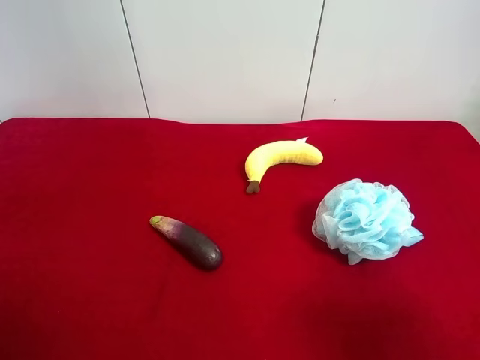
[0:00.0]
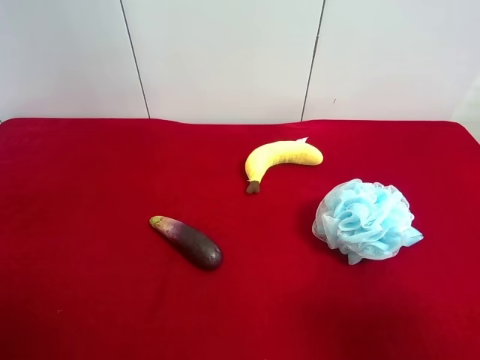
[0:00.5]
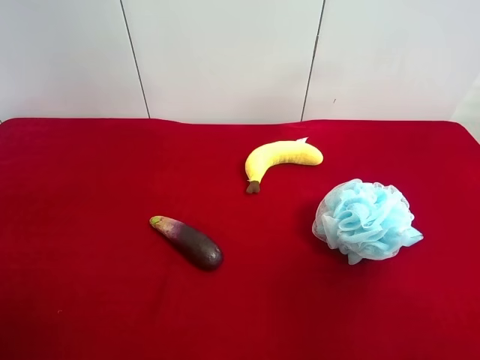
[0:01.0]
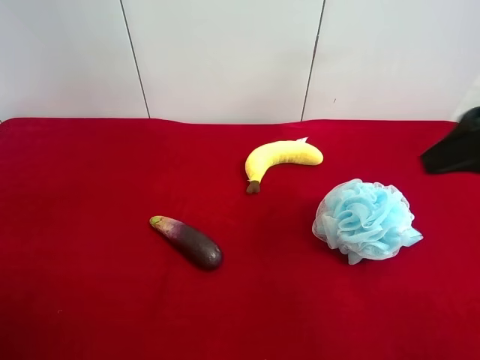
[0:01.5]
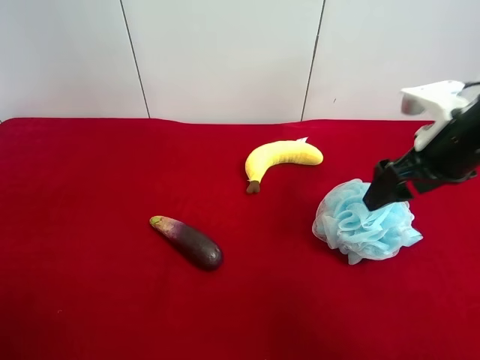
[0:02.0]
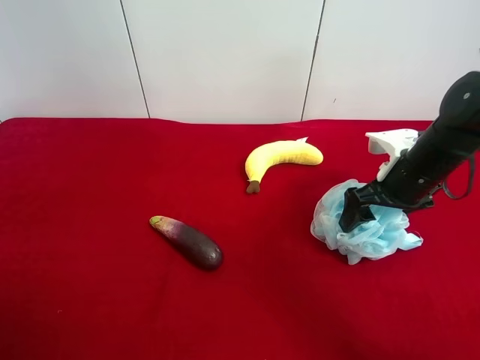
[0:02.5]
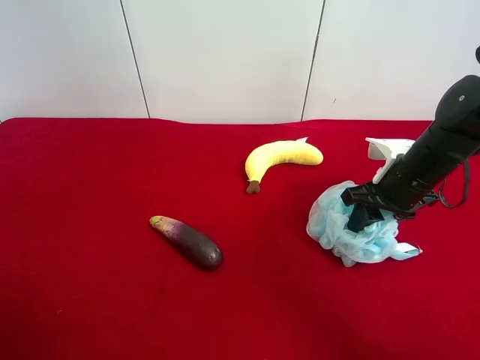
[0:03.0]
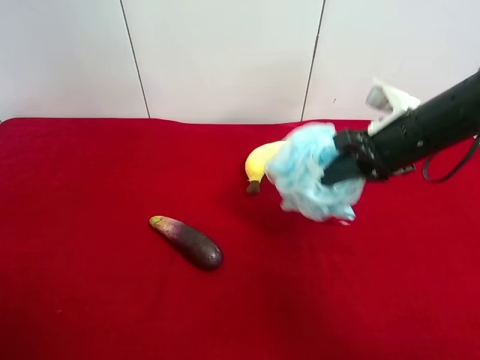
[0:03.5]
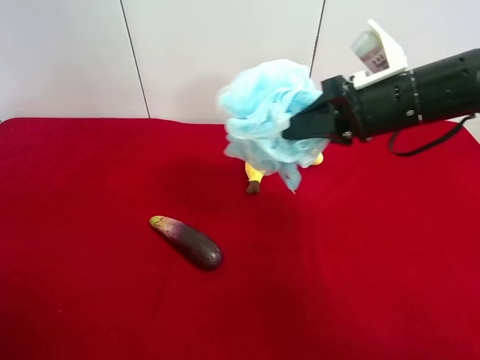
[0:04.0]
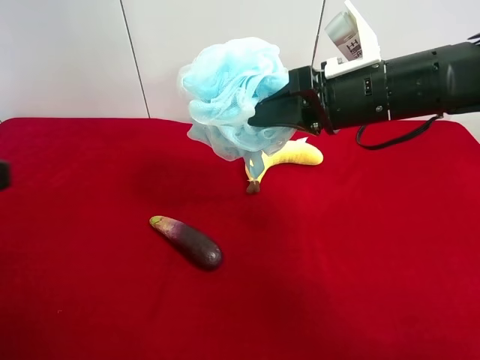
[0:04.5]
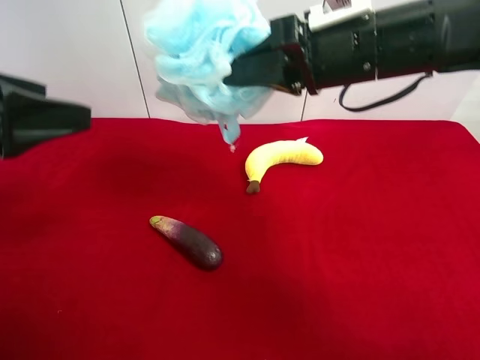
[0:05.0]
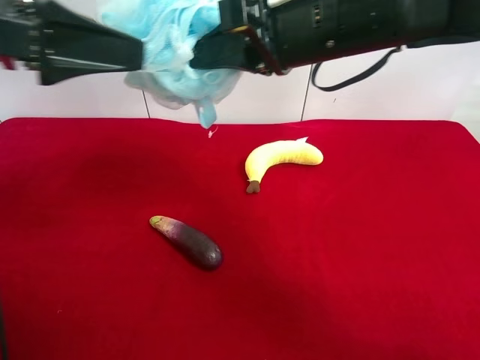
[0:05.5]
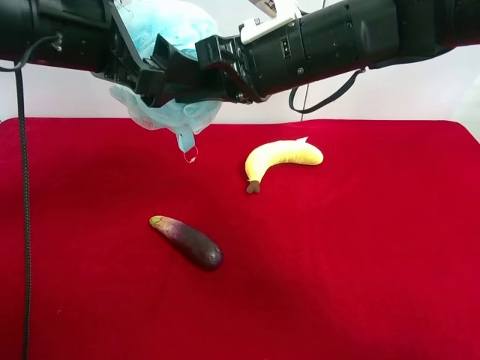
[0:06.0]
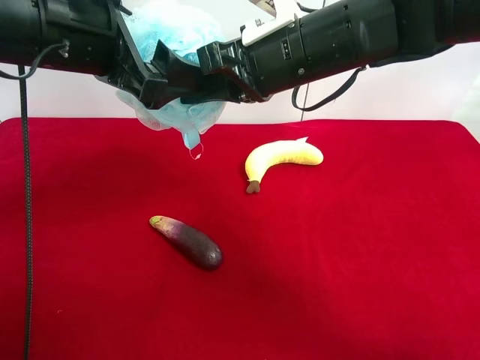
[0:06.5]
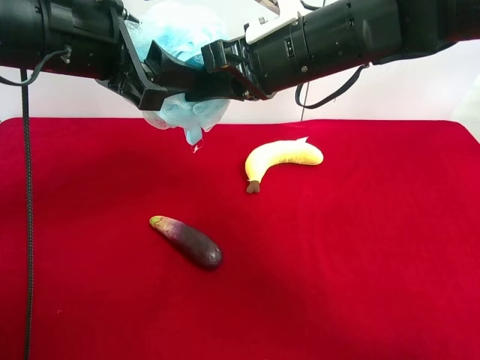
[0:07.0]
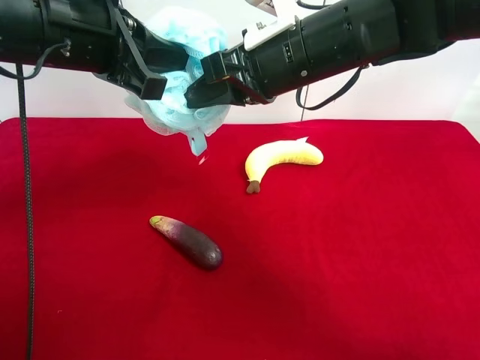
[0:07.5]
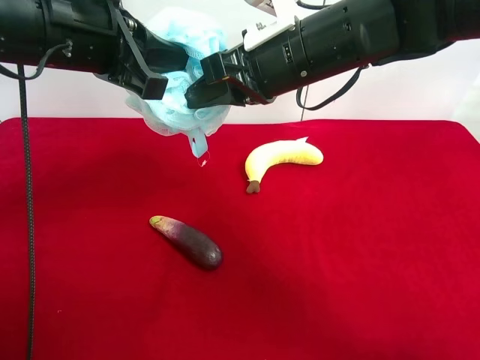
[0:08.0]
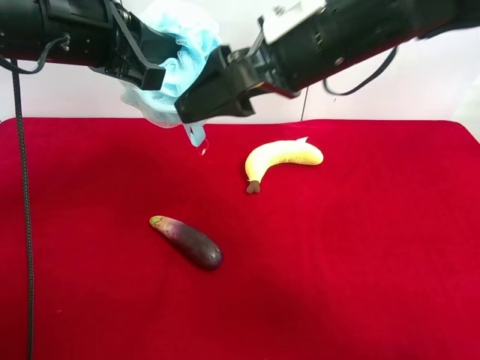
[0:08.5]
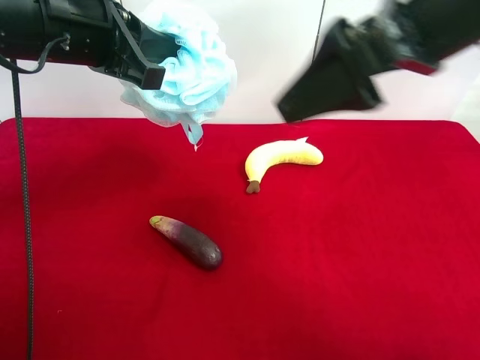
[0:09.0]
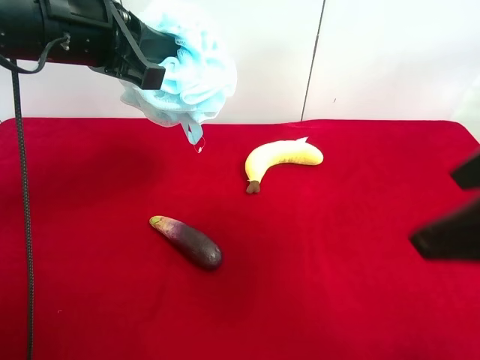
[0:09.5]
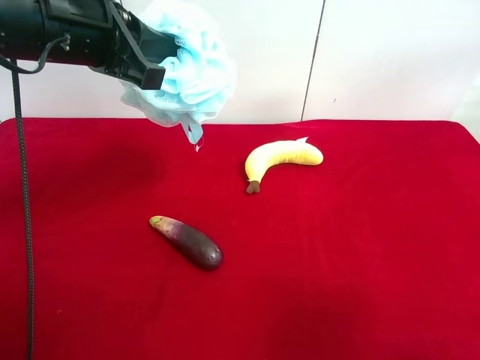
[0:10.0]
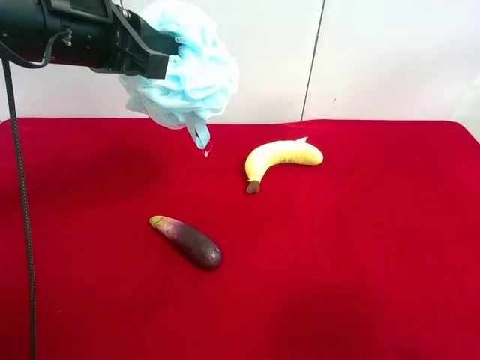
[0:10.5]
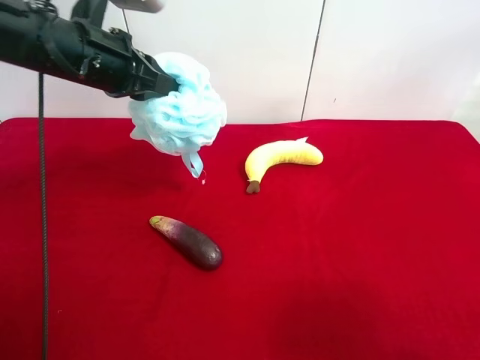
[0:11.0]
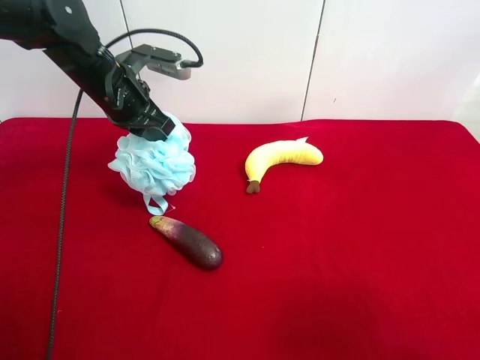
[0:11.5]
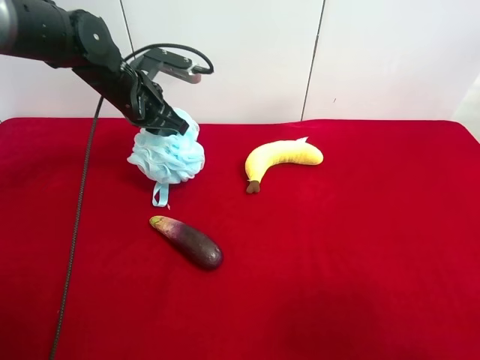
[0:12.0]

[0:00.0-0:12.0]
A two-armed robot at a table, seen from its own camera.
Task of the whole recording: use the right gripper to pick up the item and transfer it from the right gripper to the left gripper.
Step, 0:00.0 to 0:03.0: Use the right gripper to grab the shower sphere on the right side of the table.
Step, 0:03.5 to 0:08.5: Pass the shower sphereto the left gripper.
0:00.0 to 0:02.0: The right gripper moves forward, roughly 25 cm.
0:02.0 to 0:04.0: The right gripper is displaced to the left by approximately 10 cm, reaches about 10 cm downward, then returns, and closes.
0:04.0 to 0:06.0: The left gripper travels forward and to the right by some 30 cm. Meanwhile the right gripper heads to the left, covering roughly 10 cm.
0:06.0 to 0:08.0: The left gripper closes up.
0:08.0 to 0:10.0: The right gripper travels backward and to the right by about 35 cm, and opens up.
0:10.0 to 0:12.0: The left gripper shifts approximately 20 cm forward and downward.

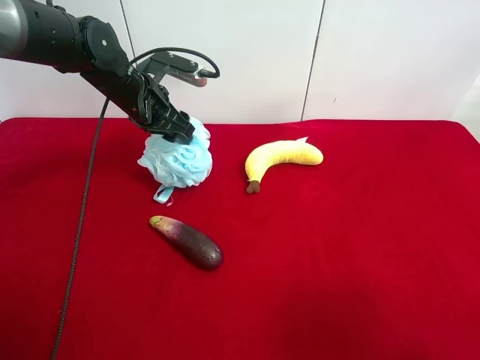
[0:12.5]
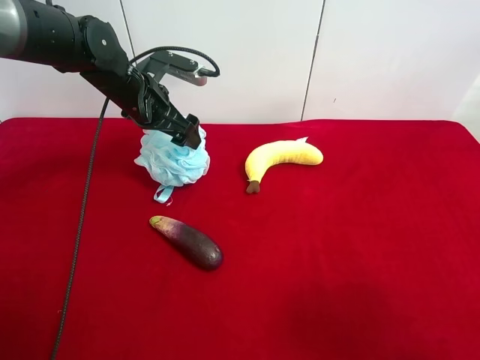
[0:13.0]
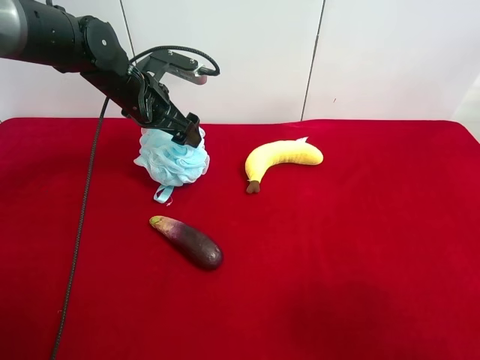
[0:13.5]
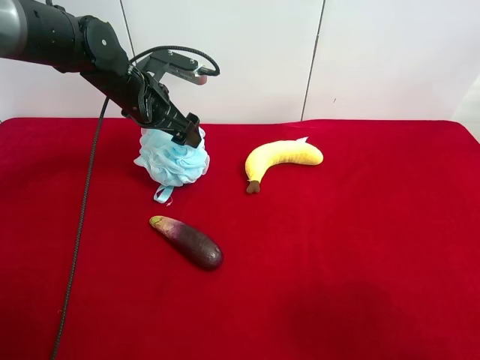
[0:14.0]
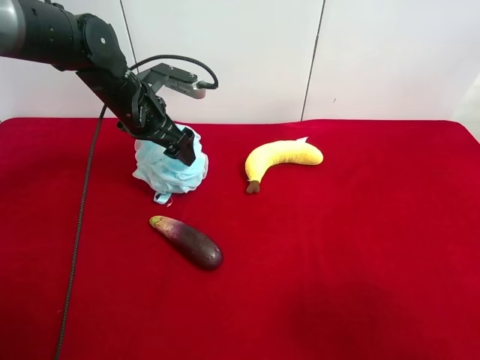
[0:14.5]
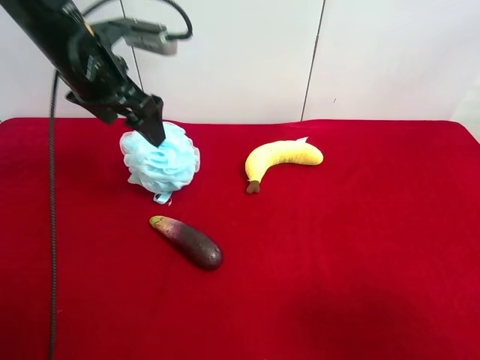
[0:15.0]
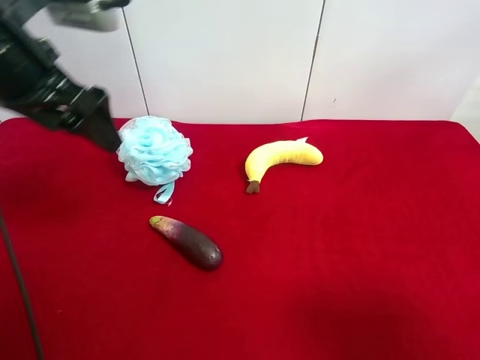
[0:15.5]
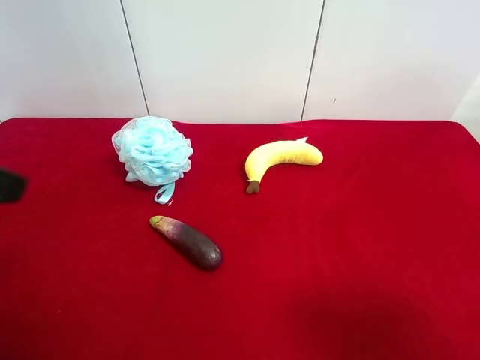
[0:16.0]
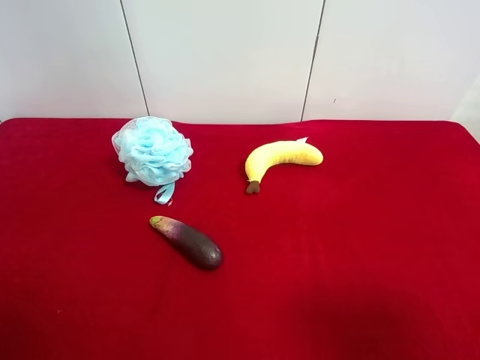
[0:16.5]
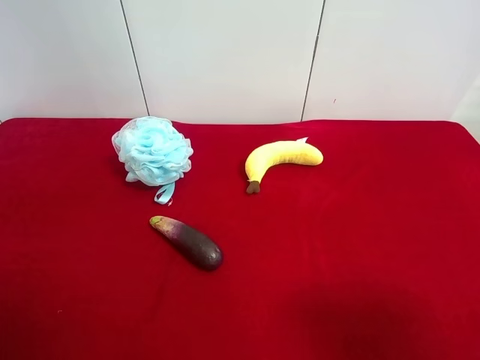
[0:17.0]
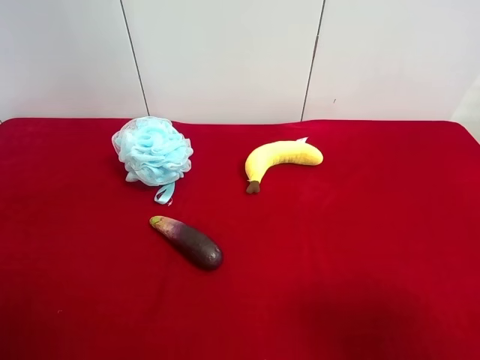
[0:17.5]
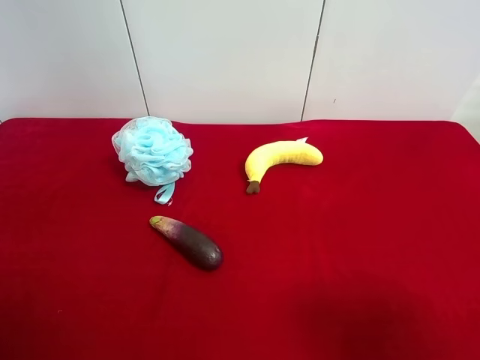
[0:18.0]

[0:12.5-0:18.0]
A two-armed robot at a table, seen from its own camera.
Task of the whole recording: use the right gripper to pick up the item and transfer it from the right gripper to the left gripper.
0:12.5 to 0:14.5: The grippers stay close to where they were, moving slightly.
0:14.5 to 0:16.0: The left gripper travels backward and upward by approximately 30 cm.
